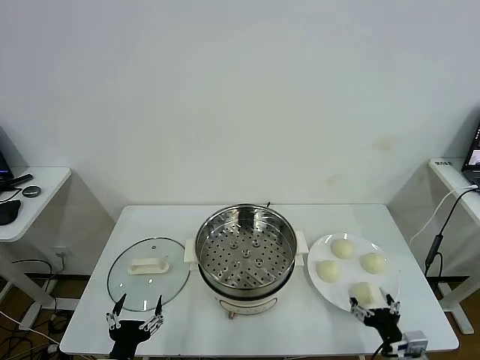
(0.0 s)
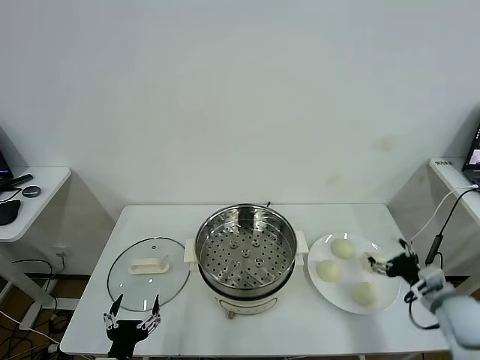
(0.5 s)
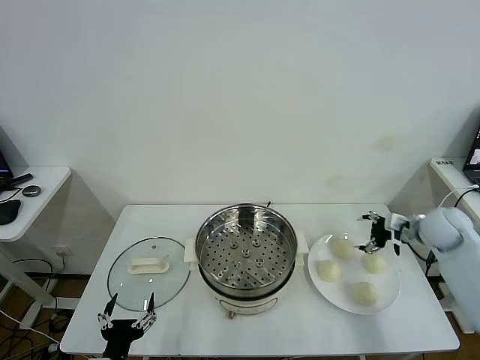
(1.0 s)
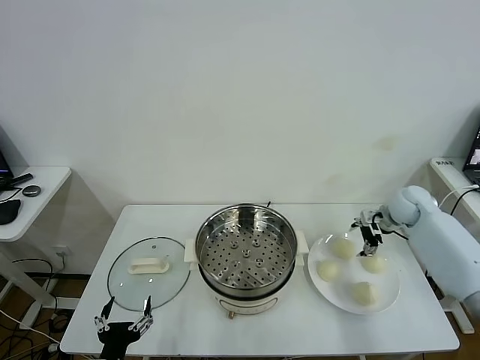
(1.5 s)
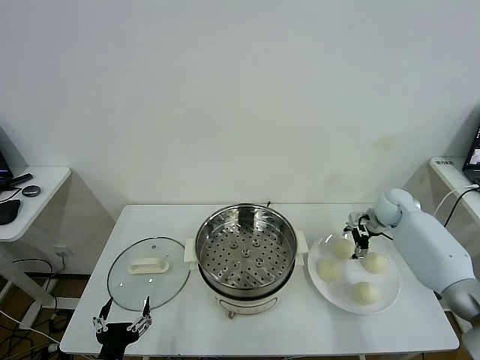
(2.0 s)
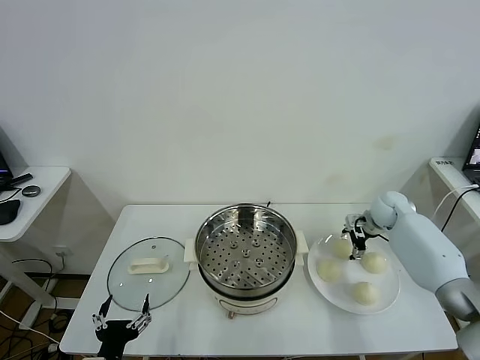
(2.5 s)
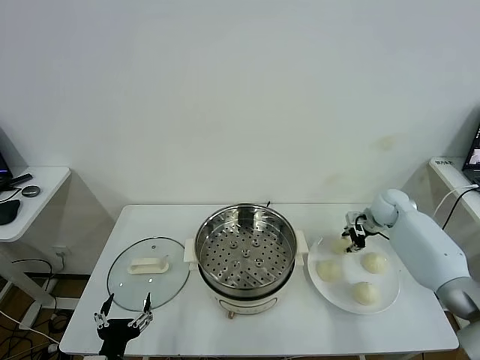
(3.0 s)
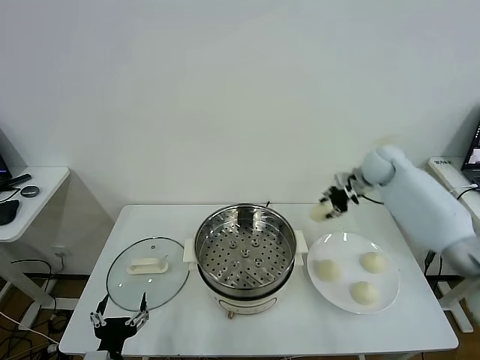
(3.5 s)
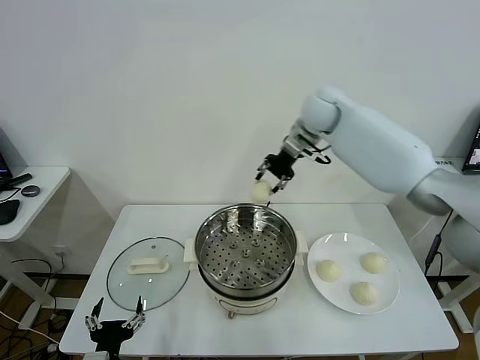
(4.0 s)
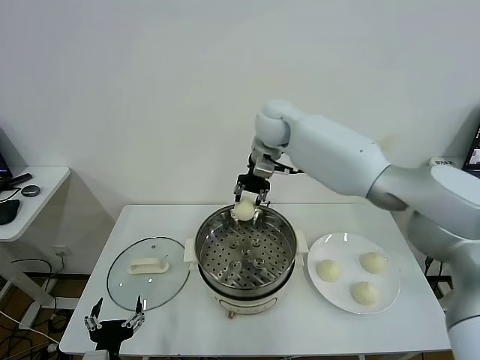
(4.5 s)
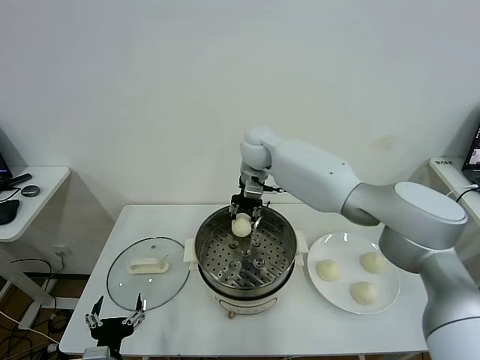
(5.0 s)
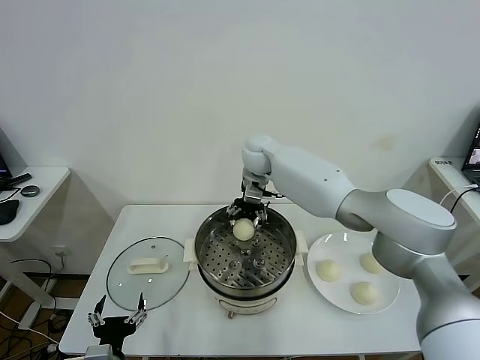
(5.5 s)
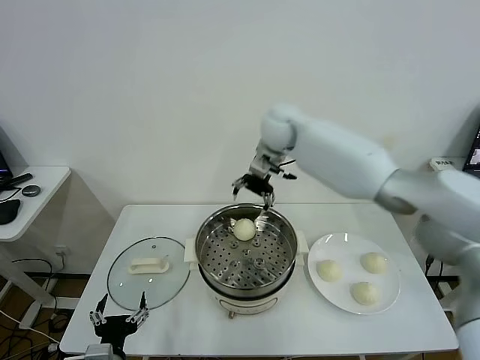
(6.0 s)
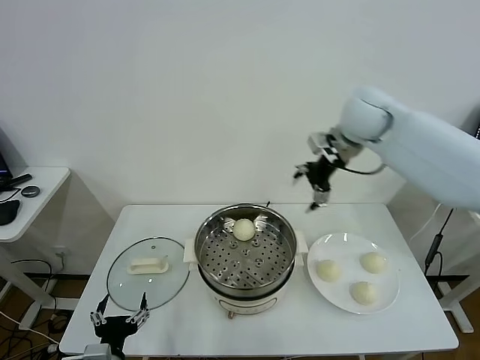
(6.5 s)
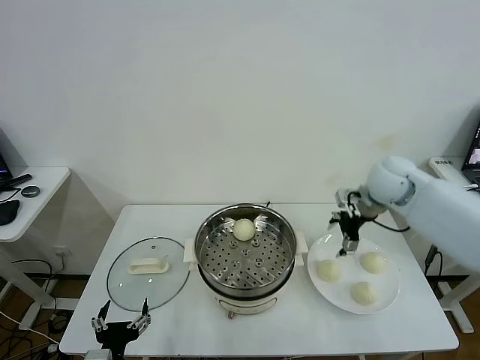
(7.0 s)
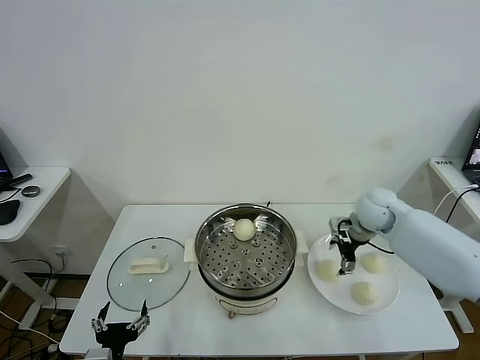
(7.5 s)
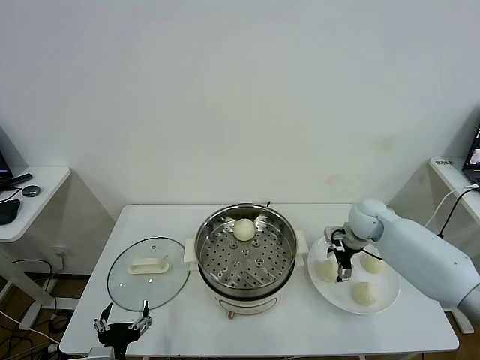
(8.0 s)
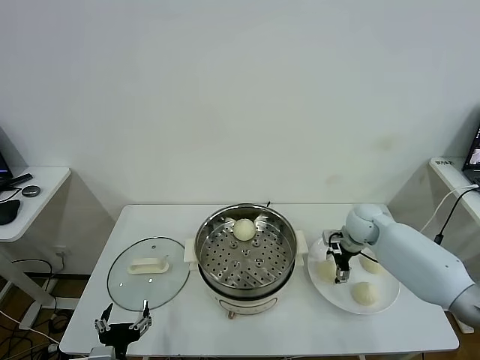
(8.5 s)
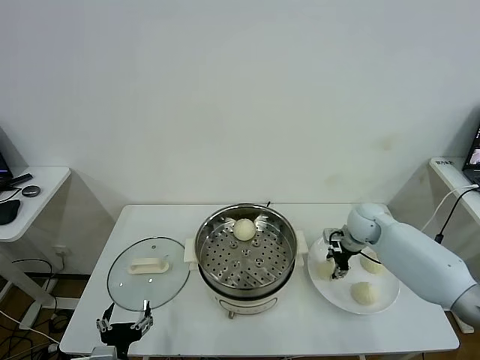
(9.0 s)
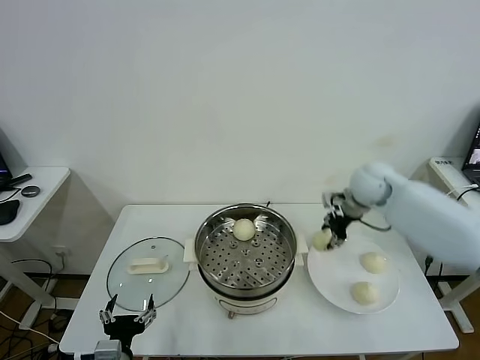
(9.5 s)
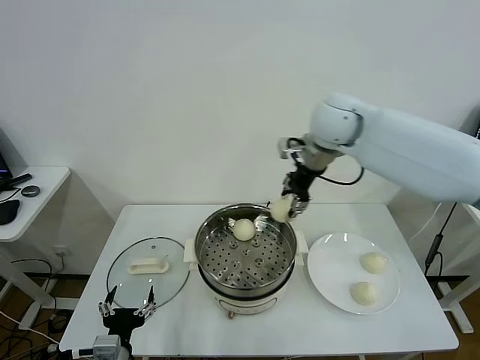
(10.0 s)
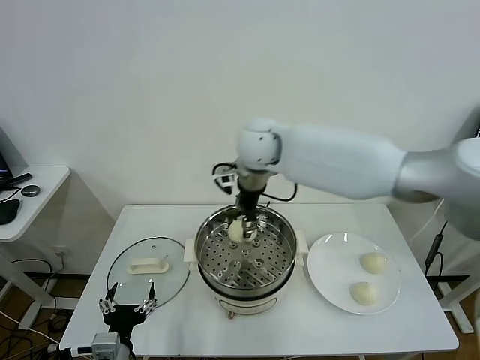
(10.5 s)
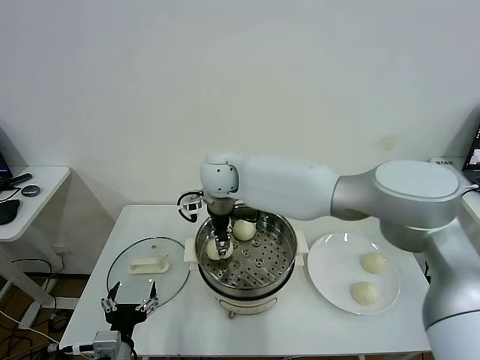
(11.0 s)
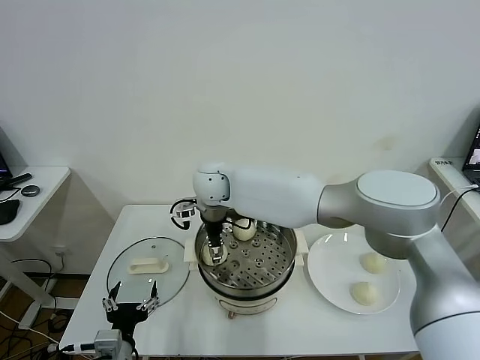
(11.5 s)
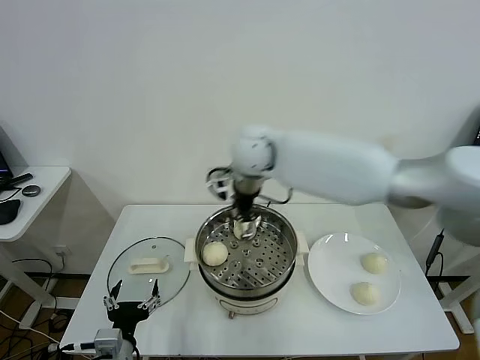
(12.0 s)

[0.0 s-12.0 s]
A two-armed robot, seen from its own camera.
Task of the whole recording: take steamed baozi put them in steamer.
Step, 0.0 to 2.5 s: Grasp the baozi in the plate with right gripper.
Step, 3.0 to 5.5 s: Place the baozi on the steamer with right gripper.
Step, 6.0 to 9.0 s: Grasp the baozi in the plate with right gripper.
Step, 9.5 to 11.5 s: Place the baozi on the steamer with right gripper.
2.0 to 4.0 s: The right gripper goes some 35 cm upward and to the left, and closes up.
4.0 to 6.0 s: The right gripper is displaced to the left by some 10 cm, and opens.
6.0 to 8.0 s: The right gripper moves to the right, downward and backward, approximately 30 cm.
8.0 to 10.0 s: The right gripper heads upward and to the left, covering about 30 cm, and closes up.
10.0 to 12.0 s: The right gripper goes roughly 15 cm to the left, and opens up.

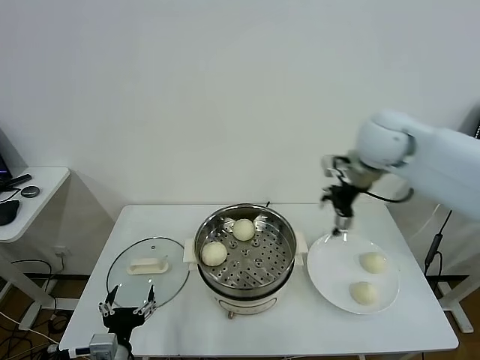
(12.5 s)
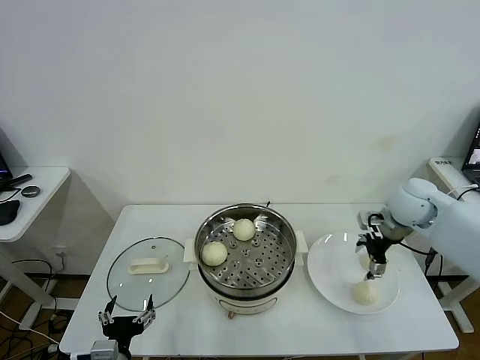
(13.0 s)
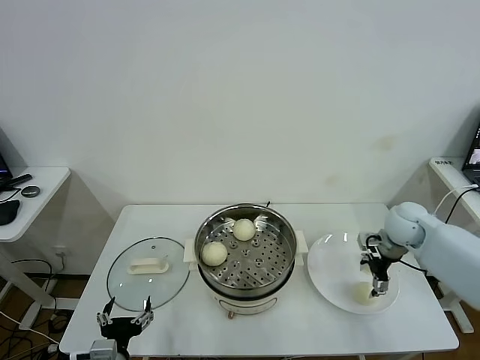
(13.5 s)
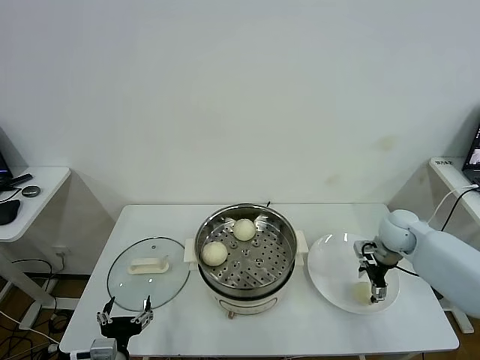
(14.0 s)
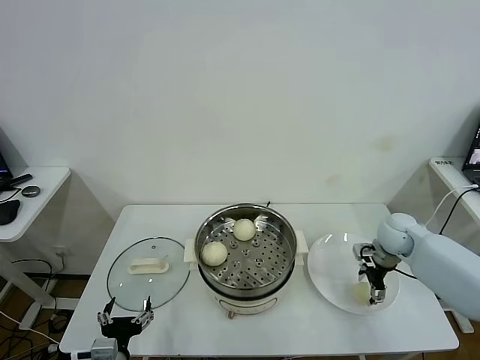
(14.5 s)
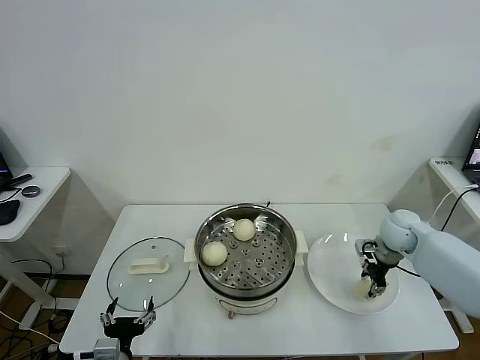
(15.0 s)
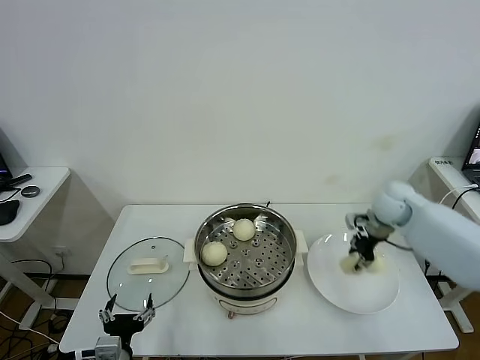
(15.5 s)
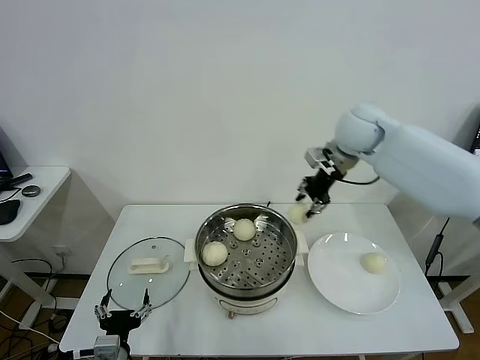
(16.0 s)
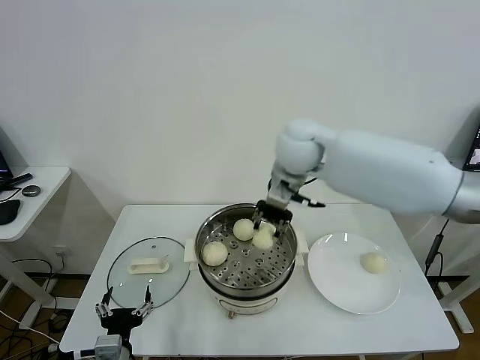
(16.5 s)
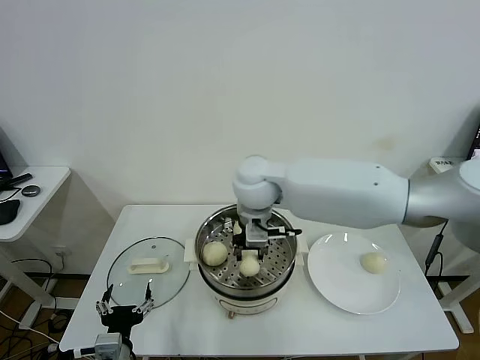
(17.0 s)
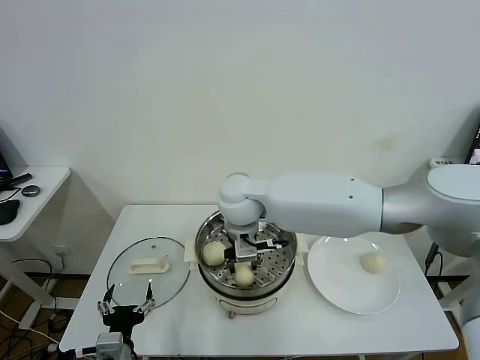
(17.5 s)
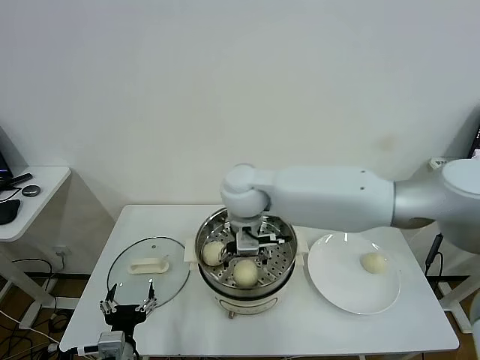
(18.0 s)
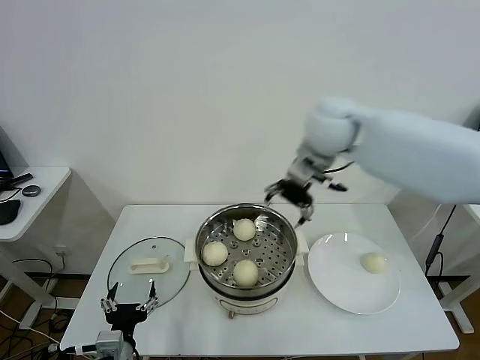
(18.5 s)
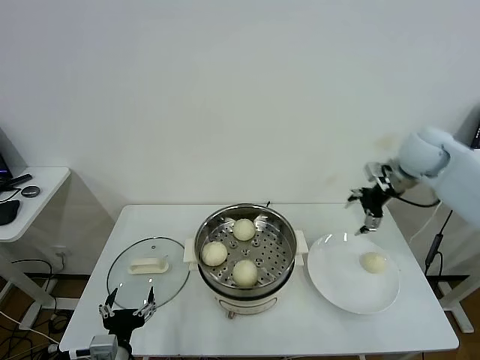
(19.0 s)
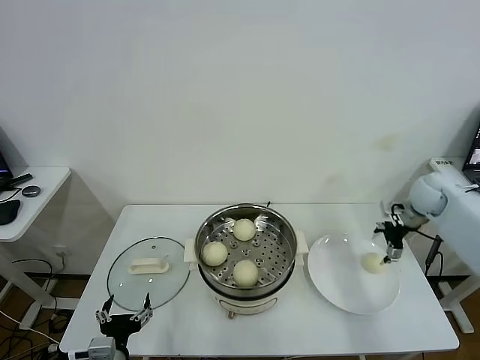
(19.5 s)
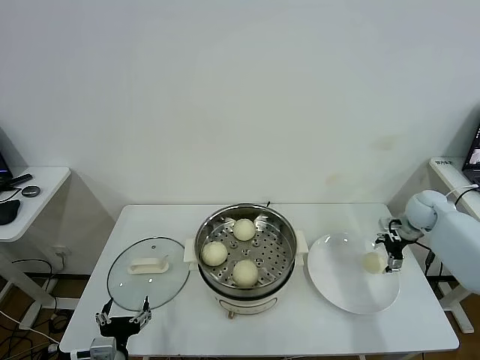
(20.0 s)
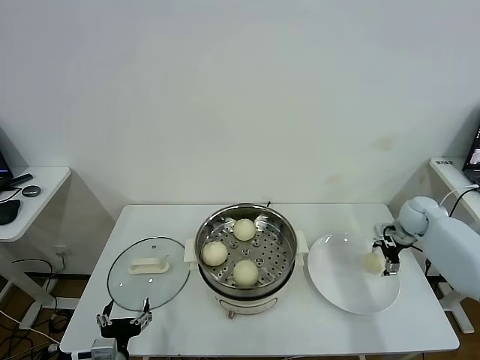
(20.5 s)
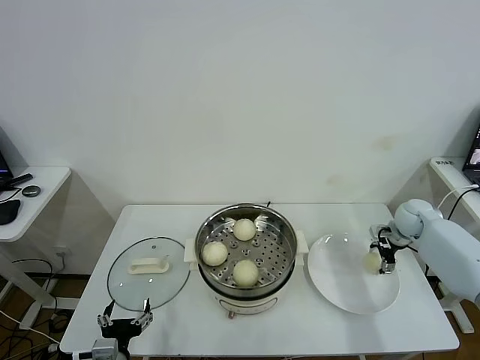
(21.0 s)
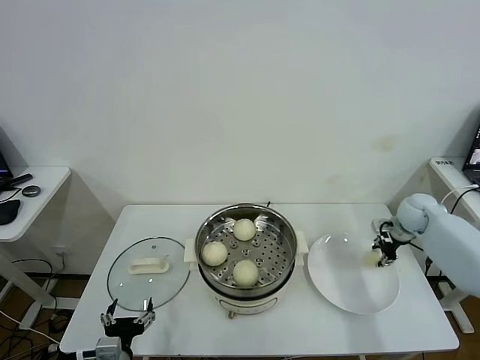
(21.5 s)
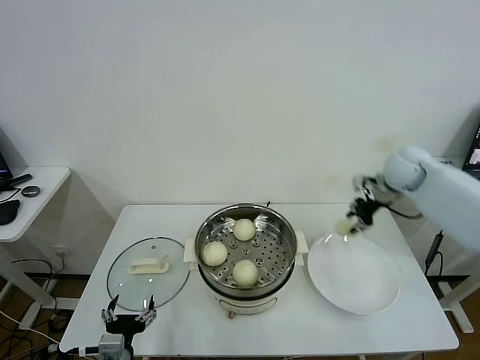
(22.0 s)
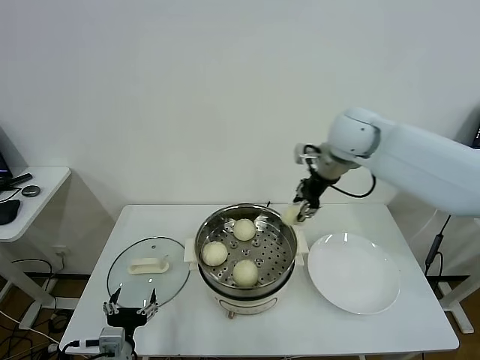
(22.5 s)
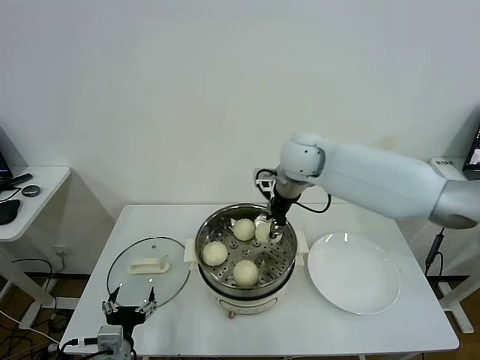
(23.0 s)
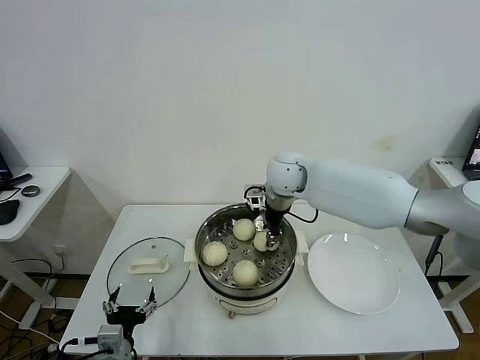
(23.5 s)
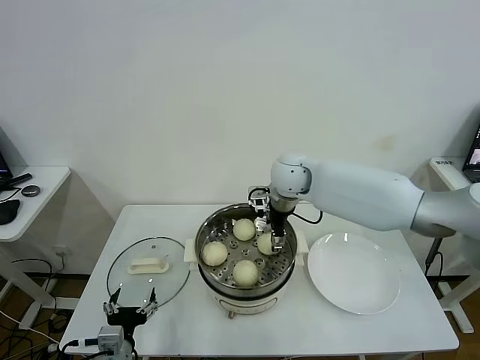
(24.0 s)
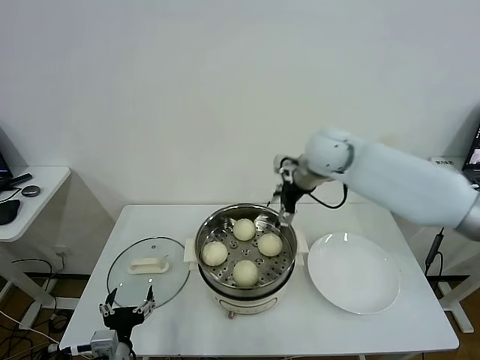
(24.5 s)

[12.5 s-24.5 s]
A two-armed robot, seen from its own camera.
Task of the whole recording: take steamed baozi put them in steamer.
Step, 12.5 to 14.5 s: Grasp the baozi in the plate with right gripper.
Step, 15.0 to 17.5 s: Place the baozi on the steamer with right gripper.
Step, 18.5 to 21.0 s: Grasp the baozi in the plate with right gripper.
Step, 21.5 to 24.0 s: Place the baozi on the steamer with right gripper.
12.5 to 14.5 s: The right gripper shifts about 30 cm downward and to the right.
14.5 to 16.5 s: The right gripper travels to the left and upward by roughly 35 cm, and closes.
16.5 to 18.5 s: The right gripper reaches roughly 10 cm to the left, then returns, and opens its fingers.
18.5 to 20.5 s: The right gripper moves to the right and downward, some 40 cm.
20.5 to 22.5 s: The right gripper shifts some 35 cm to the left and upward, and closes its fingers.
22.5 to 24.5 s: The right gripper travels to the left by about 5 cm, and opens up.

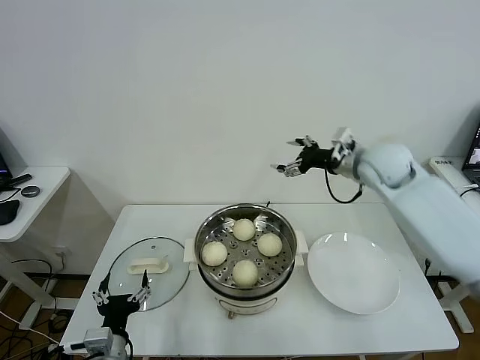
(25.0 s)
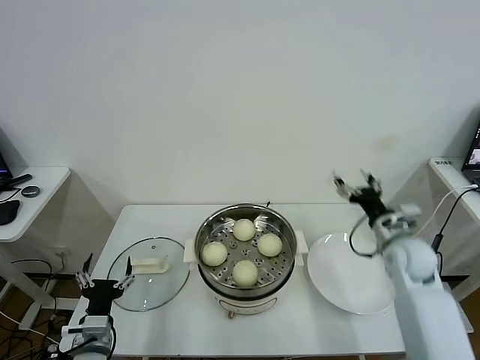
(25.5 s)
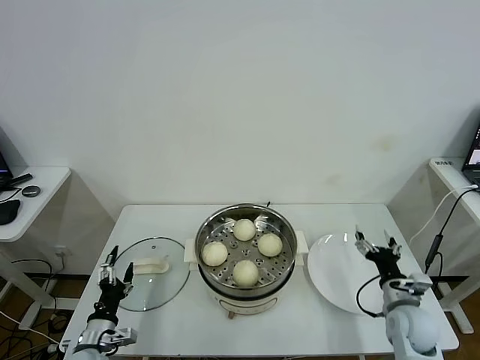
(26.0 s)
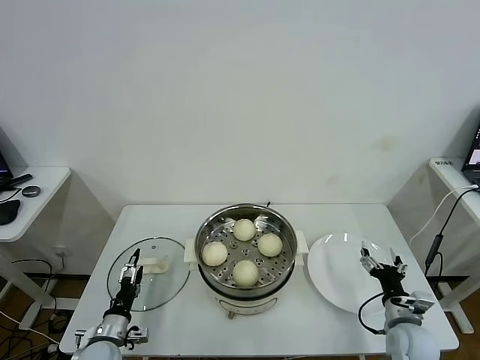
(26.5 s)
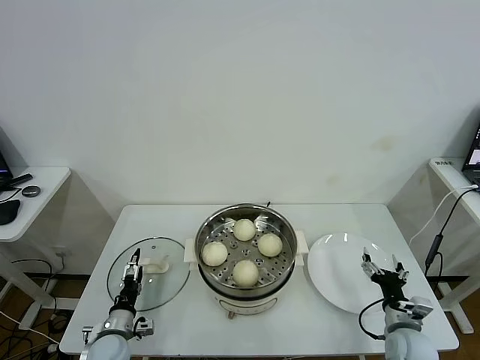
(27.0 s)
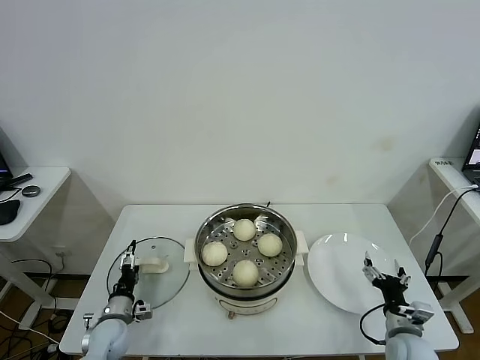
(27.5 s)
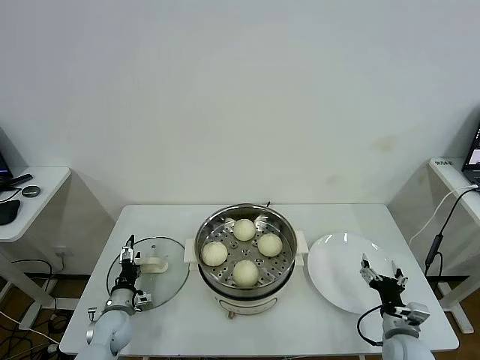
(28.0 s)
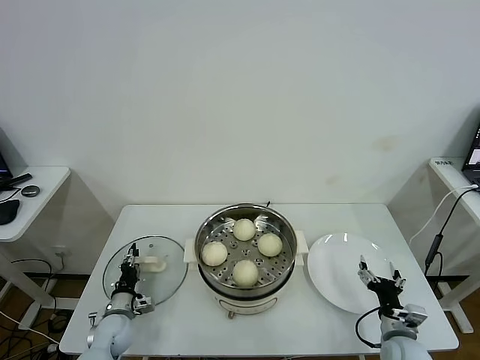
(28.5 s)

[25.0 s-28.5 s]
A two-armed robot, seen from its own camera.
Task of the whole recording: take steamed baozi put them in steamer.
25.0 to 27.0 s: The right gripper goes approximately 40 cm downward and backward, while the left gripper moves downward, forward and to the left, roughly 15 cm.
27.0 to 28.5 s: The left gripper goes approximately 5 cm forward, and closes up.
